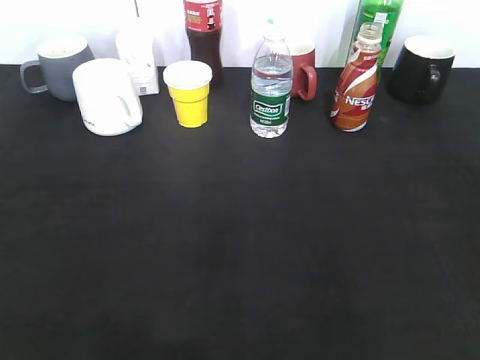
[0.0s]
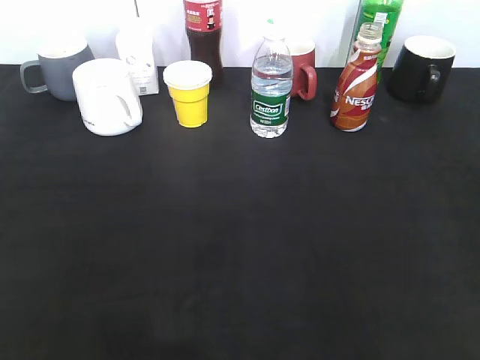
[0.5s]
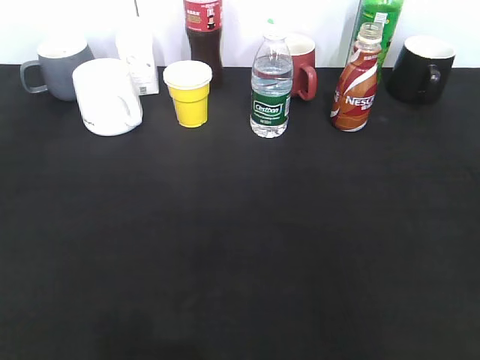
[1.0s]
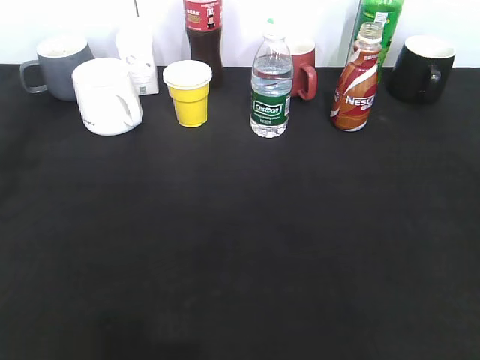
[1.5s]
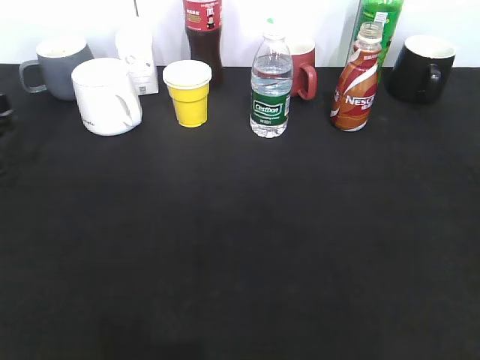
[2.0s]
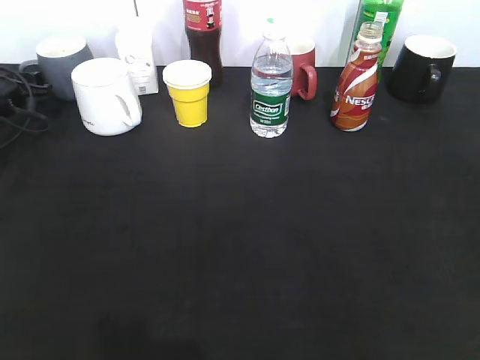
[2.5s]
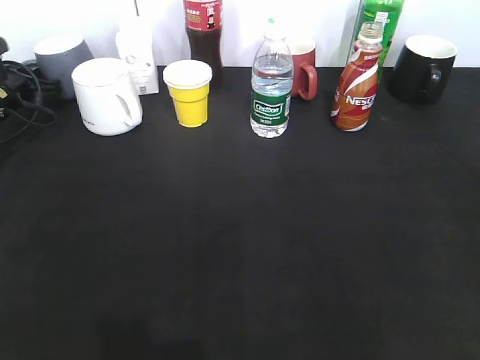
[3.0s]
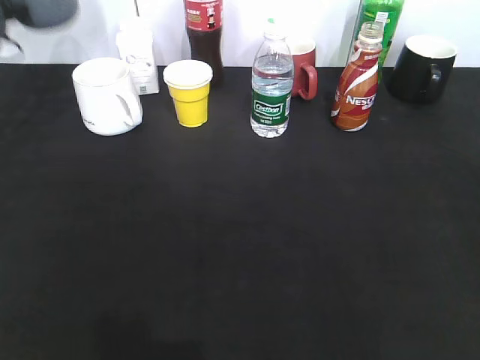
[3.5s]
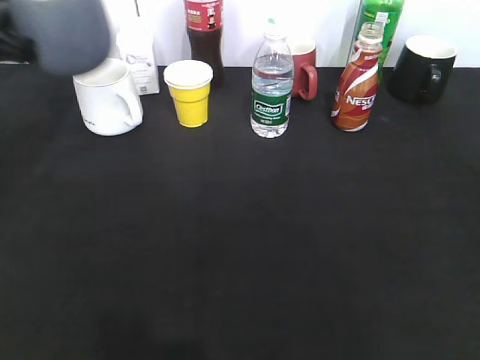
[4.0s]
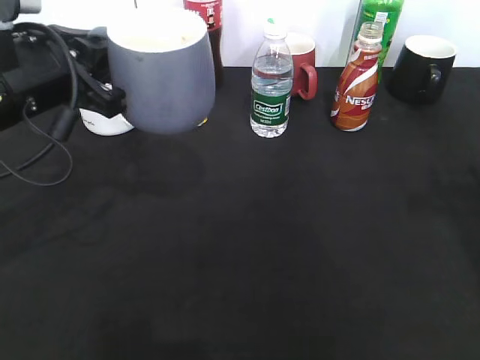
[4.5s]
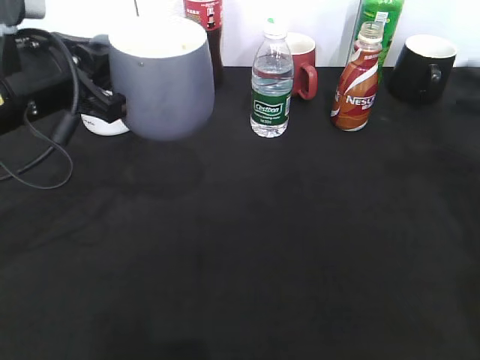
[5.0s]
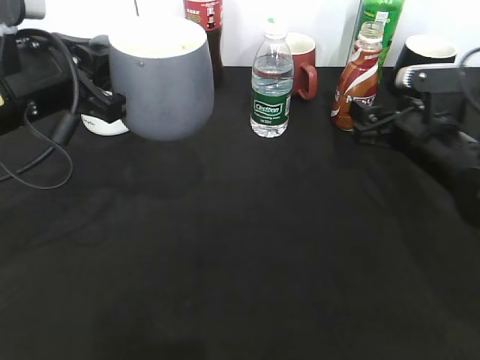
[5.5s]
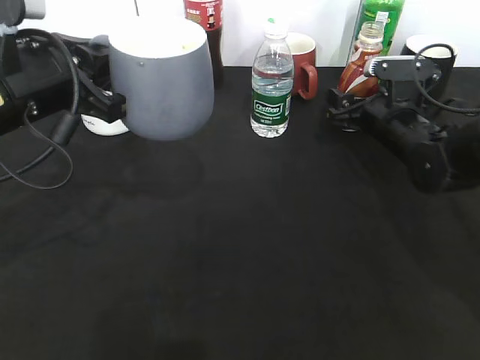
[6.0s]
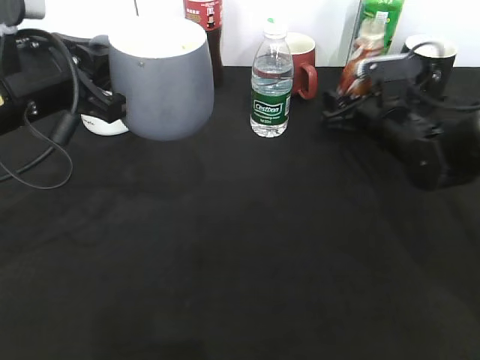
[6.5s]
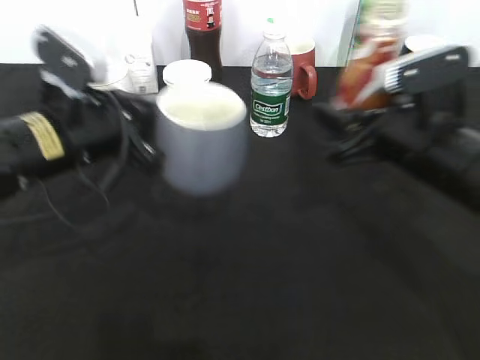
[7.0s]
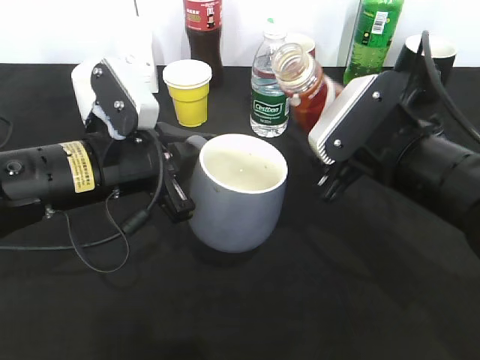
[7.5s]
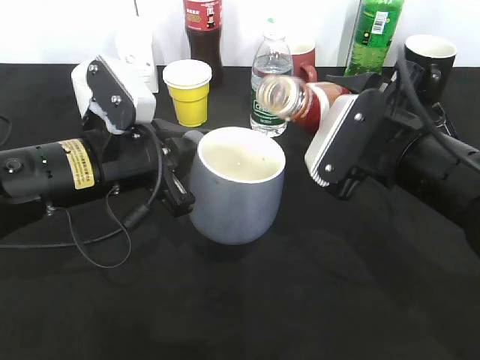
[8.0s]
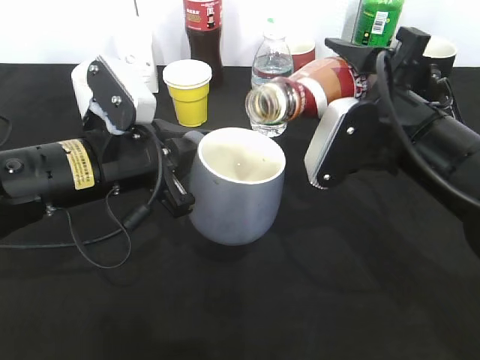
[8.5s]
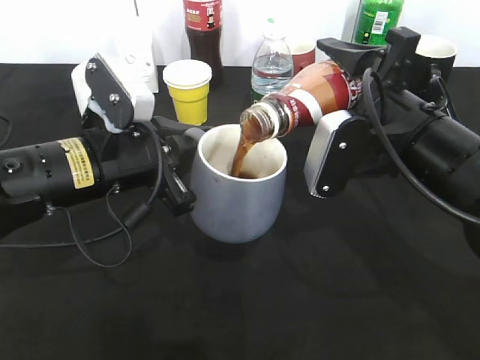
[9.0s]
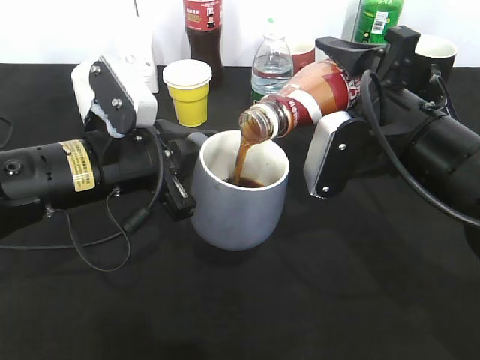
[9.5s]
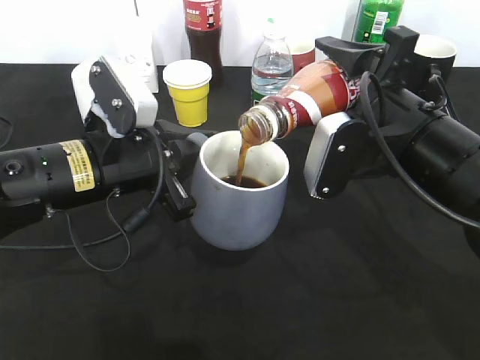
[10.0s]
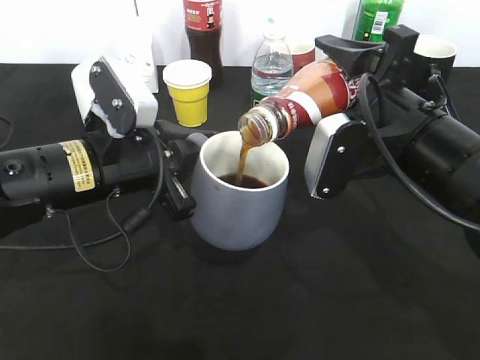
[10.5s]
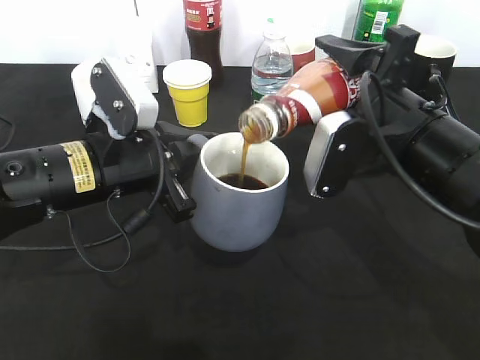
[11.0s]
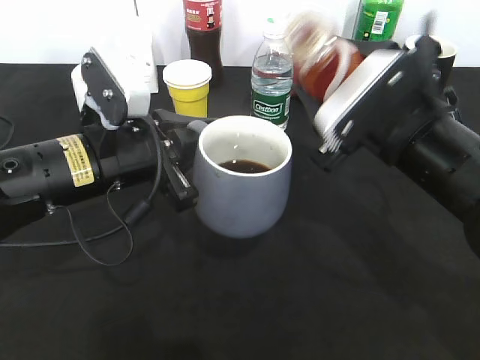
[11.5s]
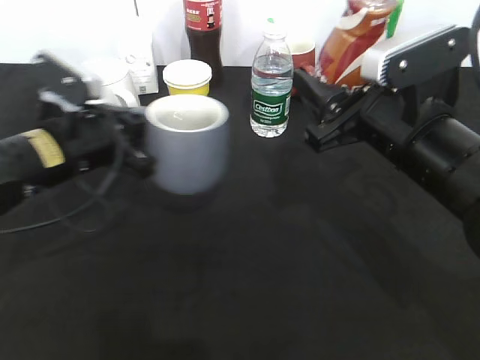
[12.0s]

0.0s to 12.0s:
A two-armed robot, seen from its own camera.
Step, 1.0s to 3.0s: Grasp the grey cup with left gripper.
Step, 3.5s to 4.5s: Lift the grey cup with left gripper.
Step, 5.0s to 6.0s: Grasp the bottle with coffee with right gripper.
Step, 7.0s to 11.0s: Pour the coffee from bottle to cup with right gripper.
0.0s to 2.0s: The left gripper is displaced forward by some 35 cm.
2.0s to 4.0s: The left gripper goes approximately 15 cm upward and to the right, goes forward and returns, roughly 15 cm each way, and closes.
4.0s to 6.0s: The right gripper heads forward and downward, covering approximately 40 cm, and opens, while the left gripper moves to the right, about 10 cm.
6.0s to 8.0s: The left gripper is displaced downward and to the right by roughly 10 cm, while the right gripper travels backward and upward by approximately 15 cm, and closes up.
10.0s to 12.0s: The left gripper travels to the left by approximately 5 cm.

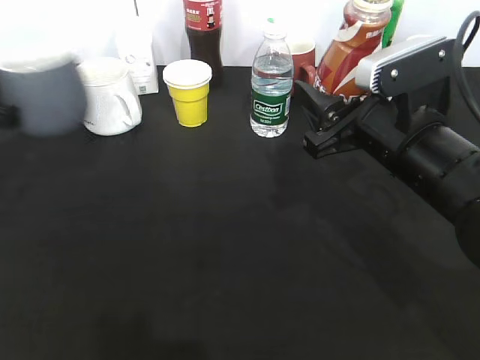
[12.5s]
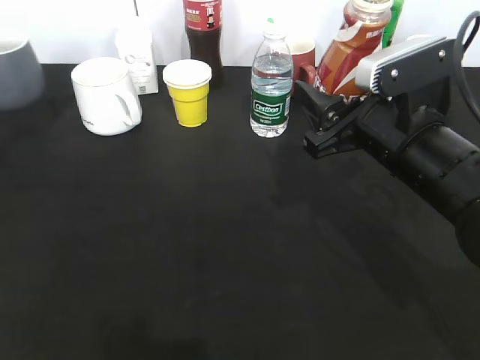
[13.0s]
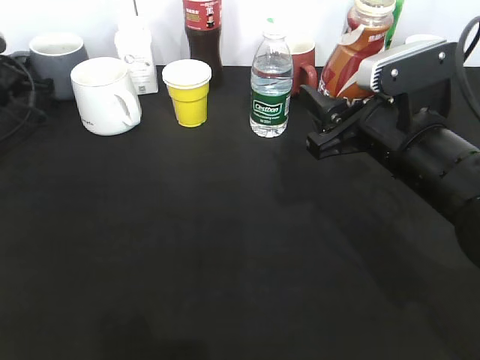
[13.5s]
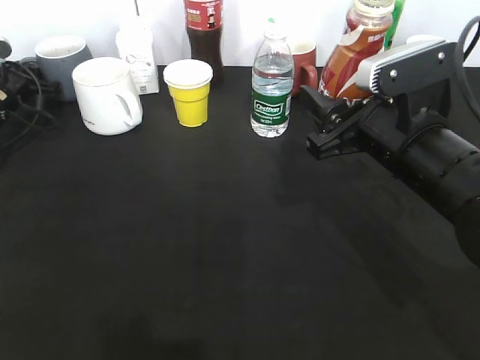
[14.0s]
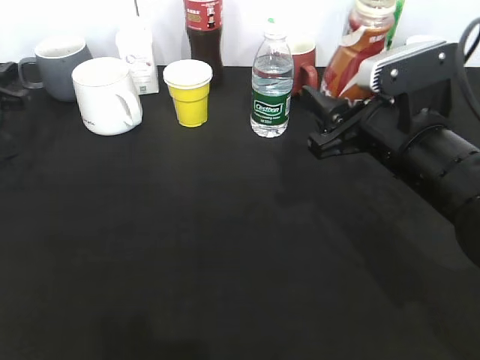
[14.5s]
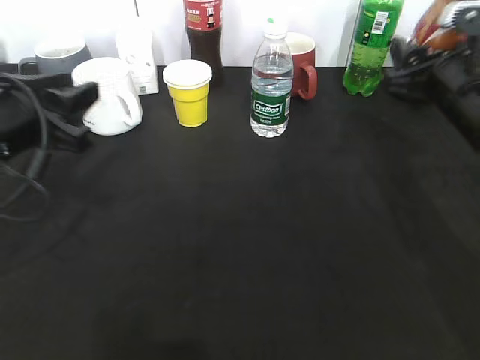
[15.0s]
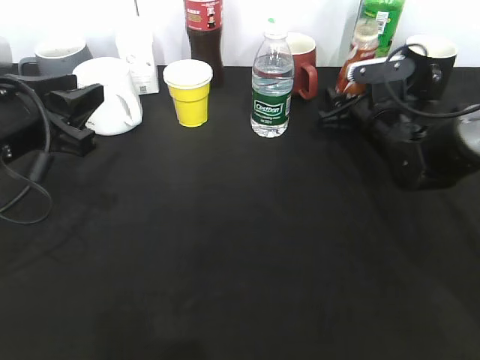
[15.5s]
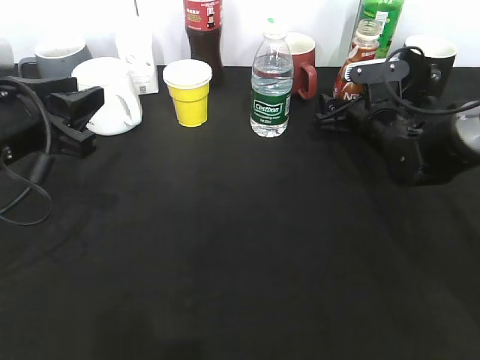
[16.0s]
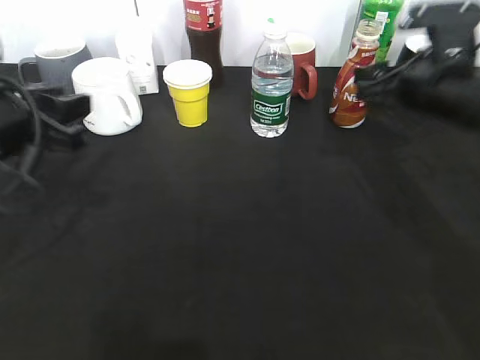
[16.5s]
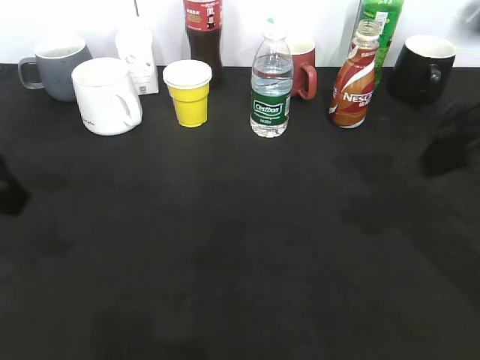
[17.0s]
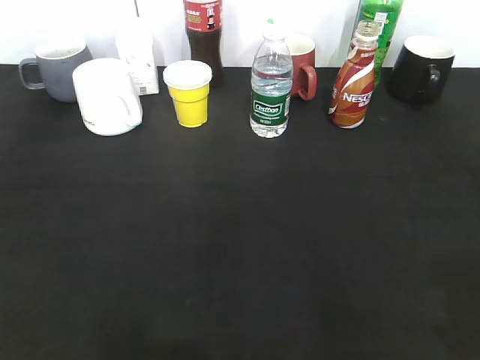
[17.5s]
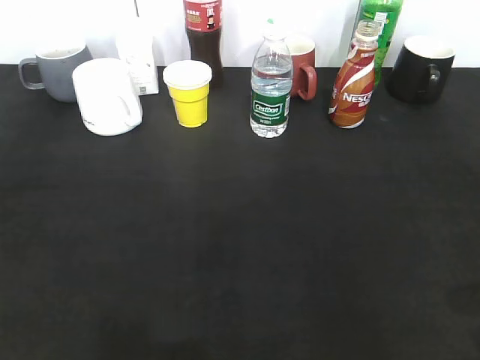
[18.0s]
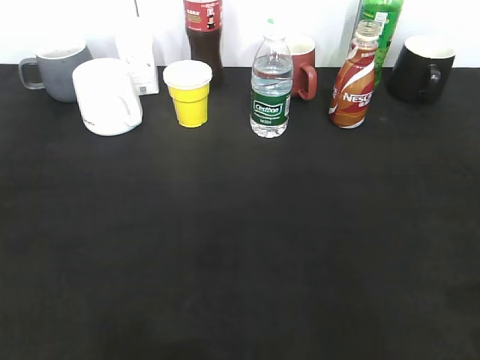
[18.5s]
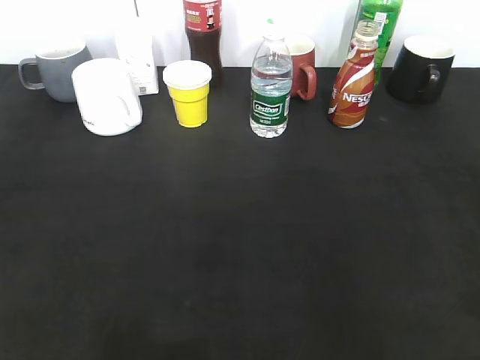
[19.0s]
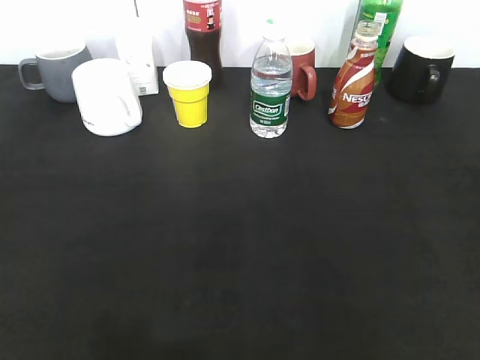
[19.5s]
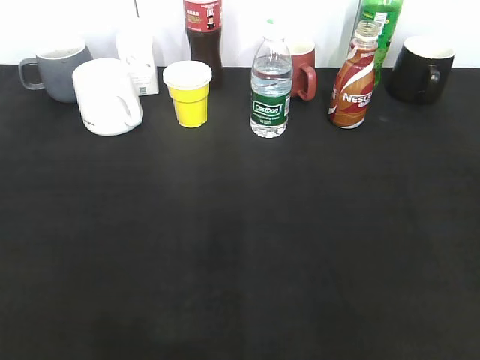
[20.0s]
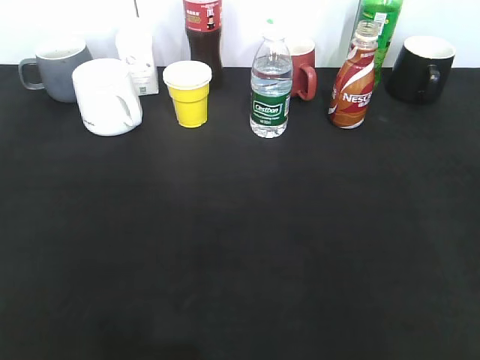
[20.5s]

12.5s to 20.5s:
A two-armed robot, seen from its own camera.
Step, 12.5s to 14.5s: Place the grey cup on the table with left gripper.
Step, 15.0s to 16.0s: Place the coffee bottle on the table with right gripper.
12.5s to 14.5s: The left gripper reaches approximately 20 cm forward, then returns, and opens its fingers.
14.5s to 16.5s: The right gripper travels forward and to the right by approximately 10 cm, while the left gripper moves to the right and backward, roughly 15 cm.
16.5s to 18.5s: The right gripper moves backward, some 30 cm, while the left gripper heads backward, covering some 20 cm.

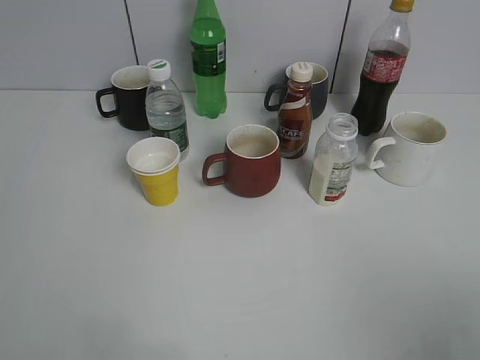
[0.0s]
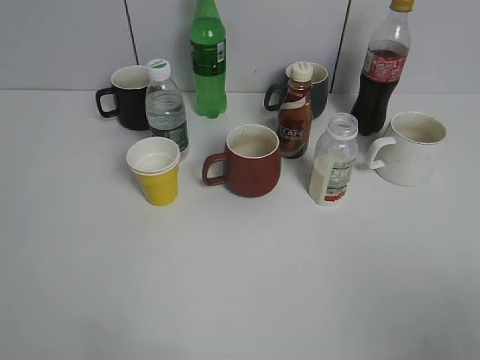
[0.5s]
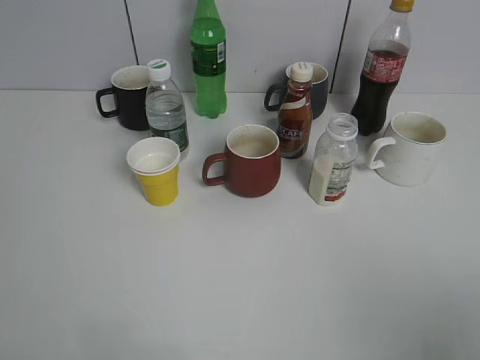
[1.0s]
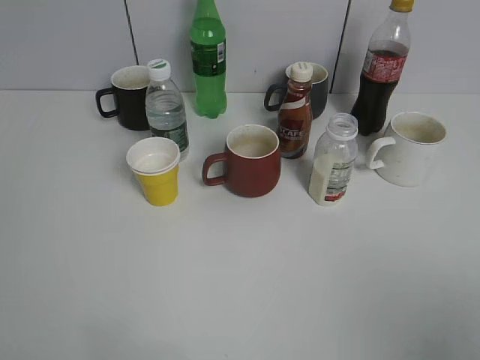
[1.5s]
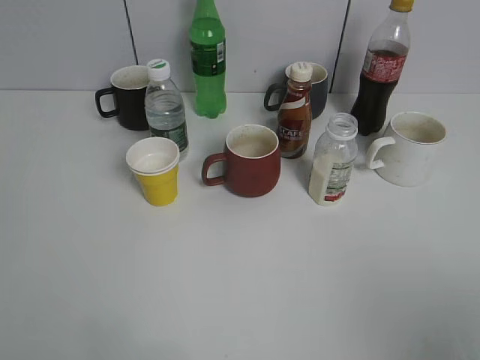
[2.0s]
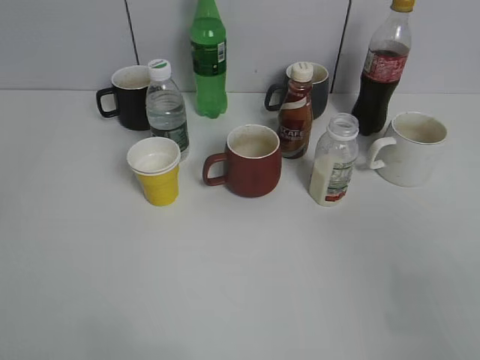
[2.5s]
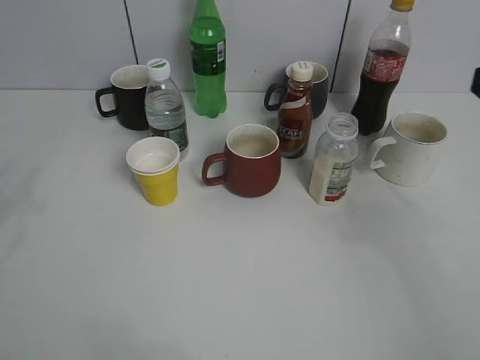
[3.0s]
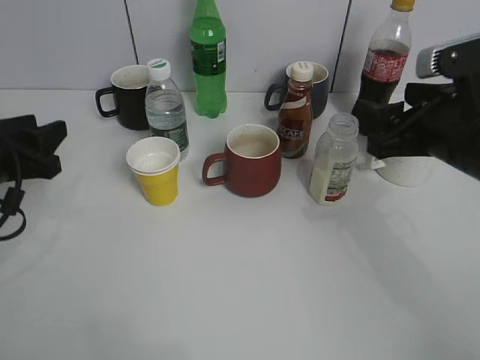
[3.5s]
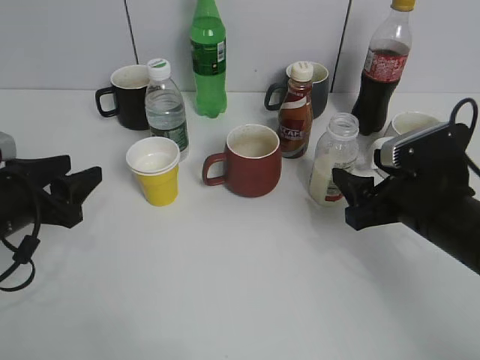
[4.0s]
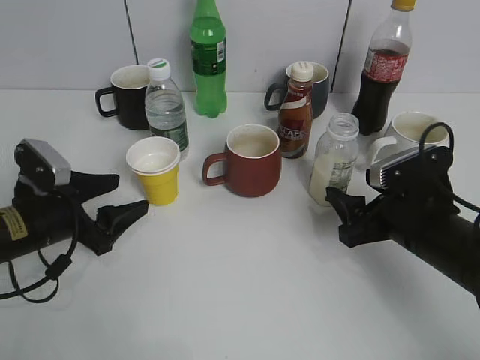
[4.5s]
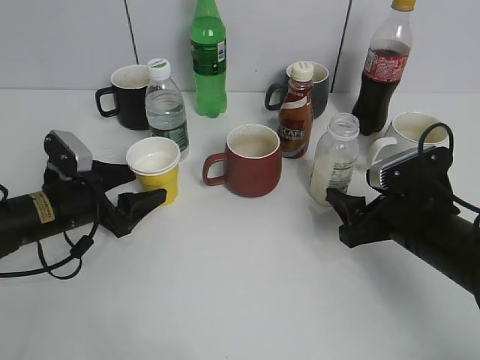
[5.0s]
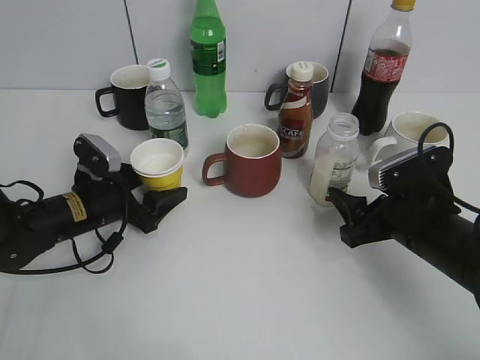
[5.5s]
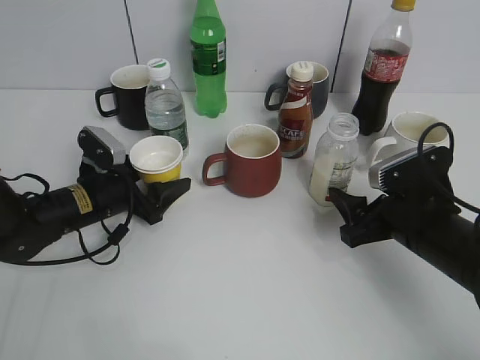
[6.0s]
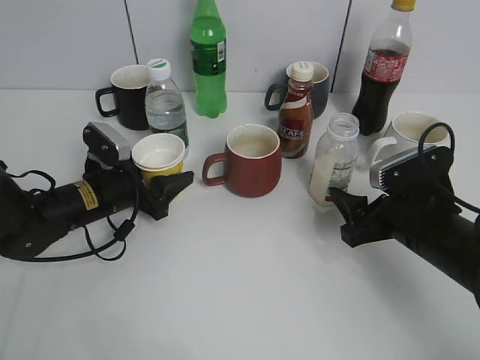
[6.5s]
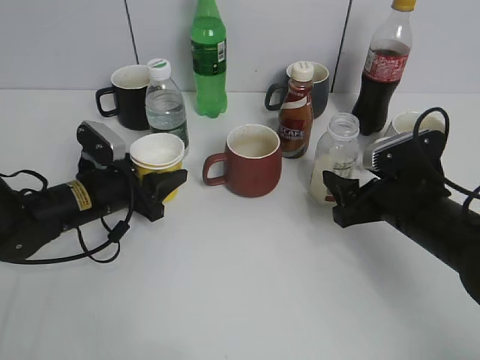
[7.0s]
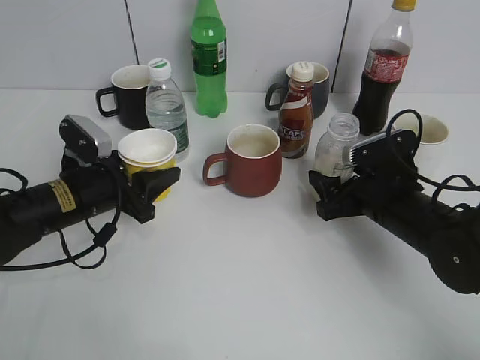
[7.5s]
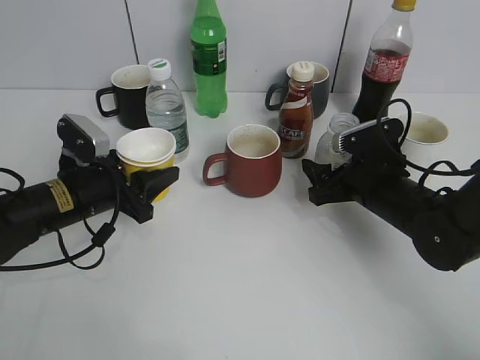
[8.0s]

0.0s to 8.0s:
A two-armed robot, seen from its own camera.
Step, 3.0s to 6.0s: Grasp the yellow paper cup with left gripper.
Step, 6.5s to 7.0s: Lift the yellow paper cup with left gripper.
2.0s to 4.0s: Both grippers move forward and downward, roughly 30 cm.
4.0s to 6.0s: The left gripper heads forward, downward and to the right, covering about 15 cm, and opens.
6.0s to 8.0s: The right gripper is displaced forward by about 5 cm. Meanwhile the left gripper closes.
